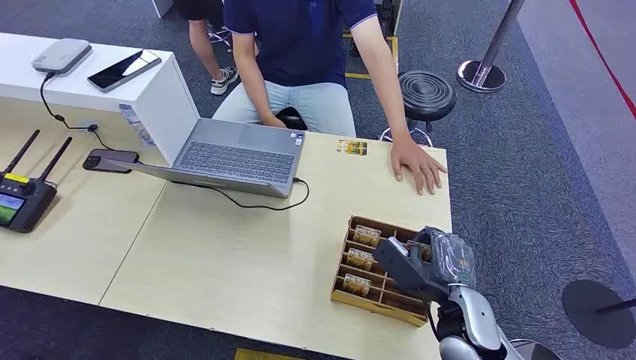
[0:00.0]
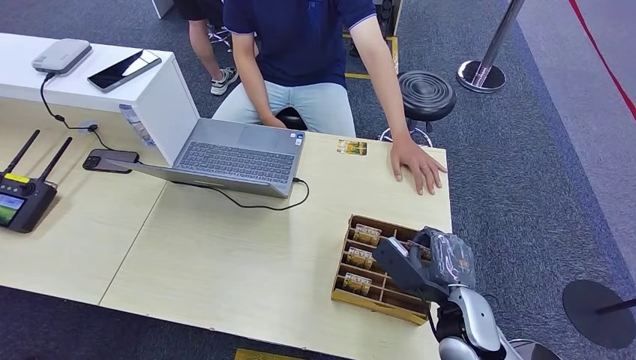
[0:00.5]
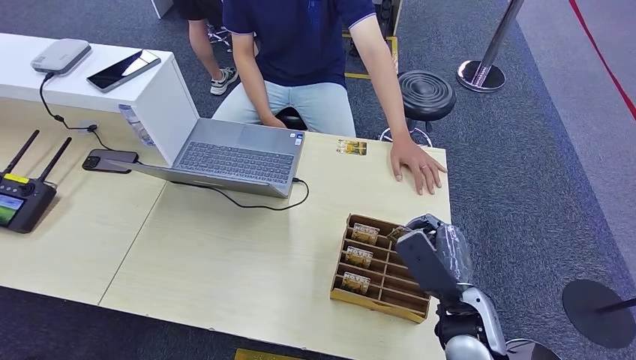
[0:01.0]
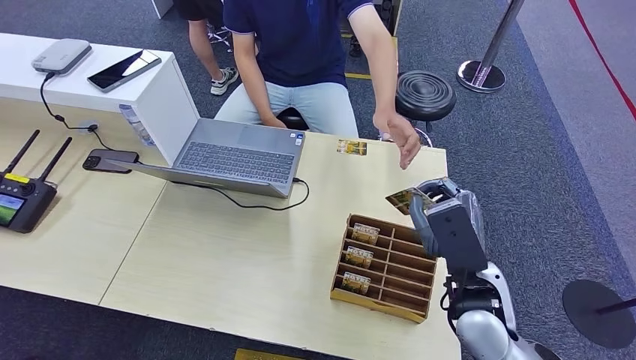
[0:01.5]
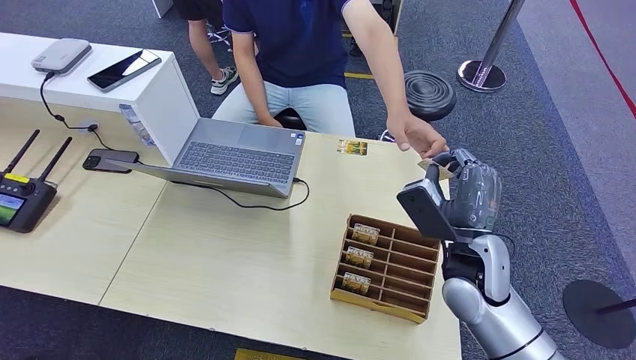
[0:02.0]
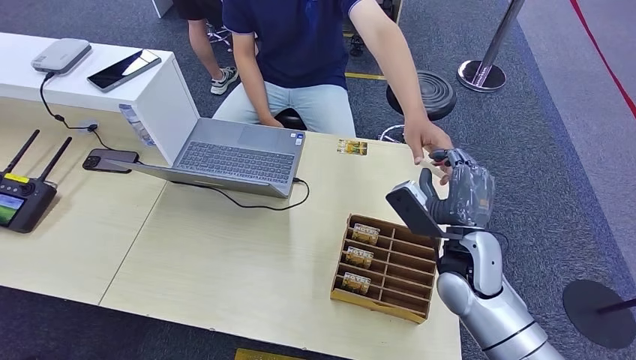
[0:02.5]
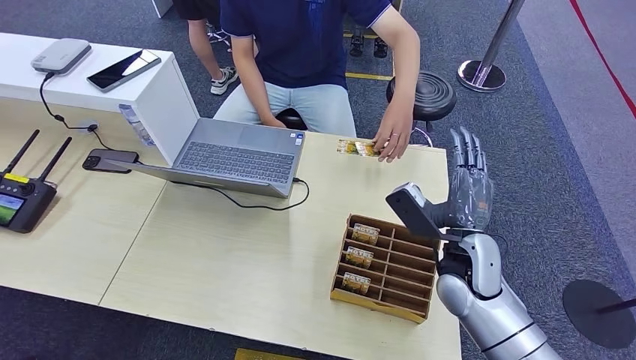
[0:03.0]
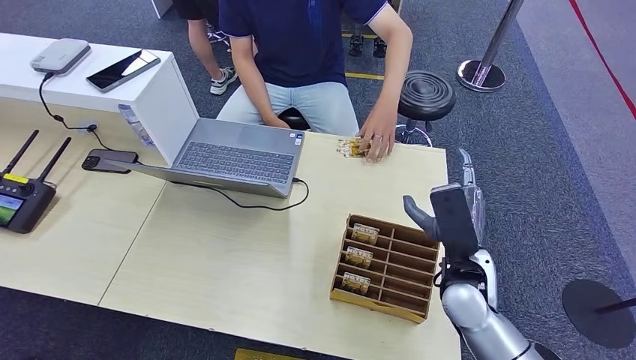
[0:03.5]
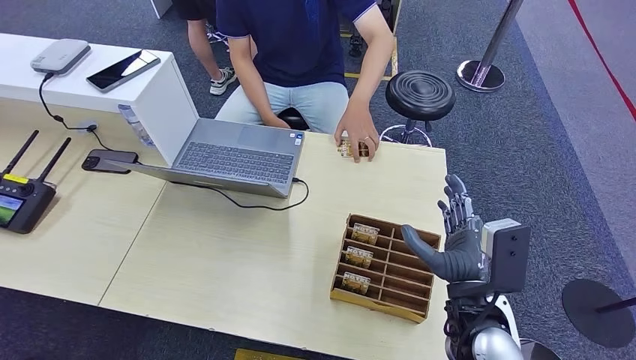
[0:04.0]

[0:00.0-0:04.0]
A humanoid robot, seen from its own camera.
Step, 0:00.0 to 0:01.5: Pick up the key card from the card box.
Step, 0:02.0 to 0:04.0: Hand the key card to the target.
0:02.0 to 0:04.0: The right hand is displaced backward by some 10 cm.
